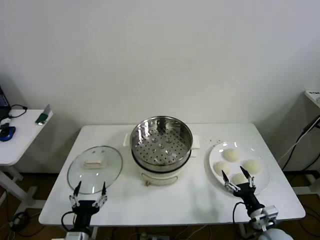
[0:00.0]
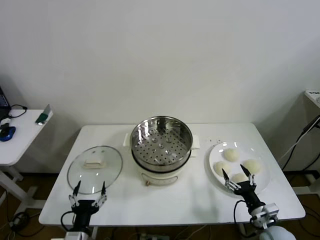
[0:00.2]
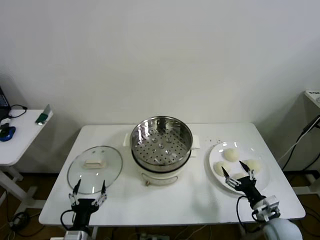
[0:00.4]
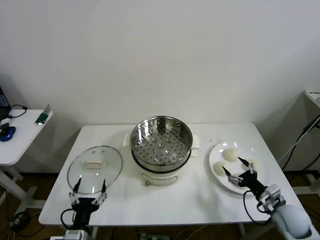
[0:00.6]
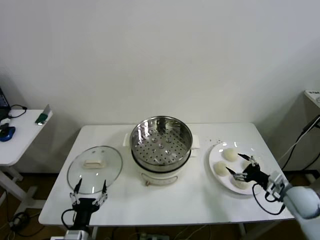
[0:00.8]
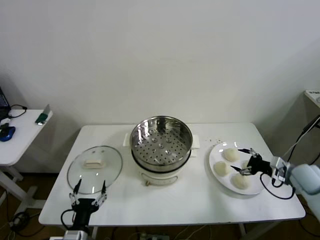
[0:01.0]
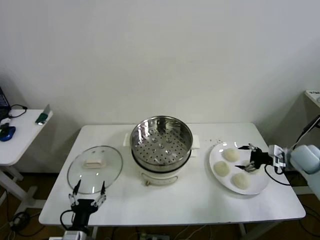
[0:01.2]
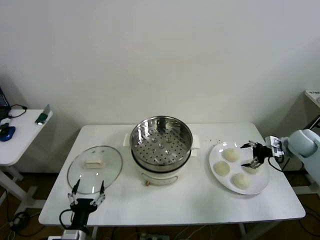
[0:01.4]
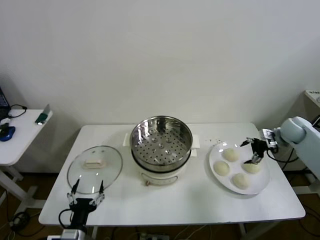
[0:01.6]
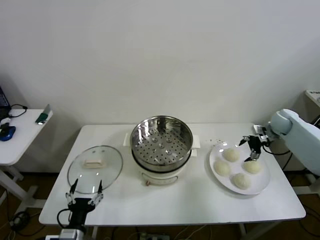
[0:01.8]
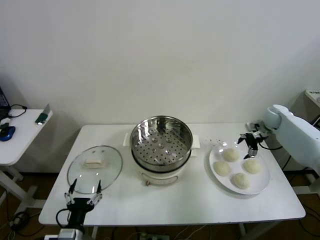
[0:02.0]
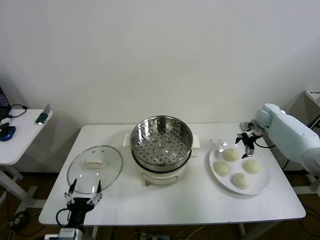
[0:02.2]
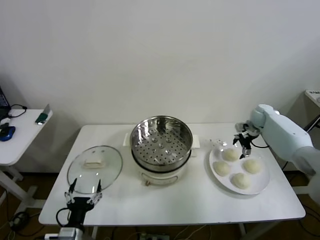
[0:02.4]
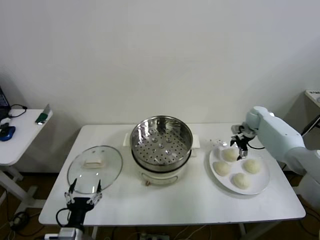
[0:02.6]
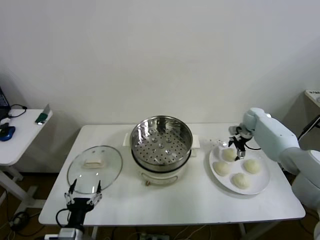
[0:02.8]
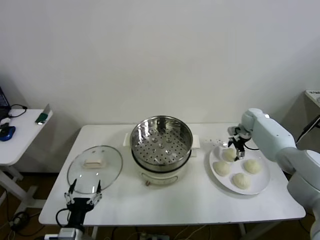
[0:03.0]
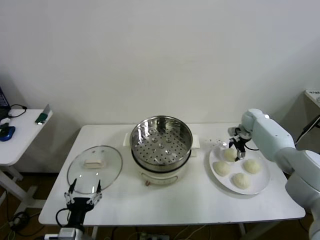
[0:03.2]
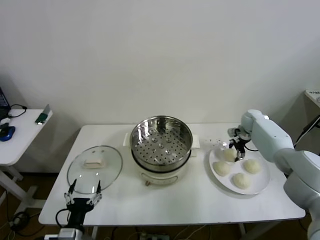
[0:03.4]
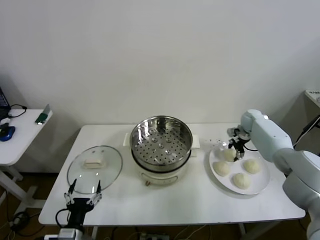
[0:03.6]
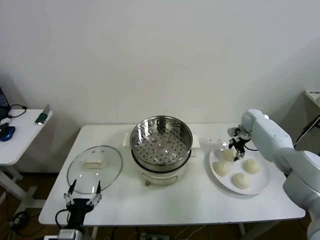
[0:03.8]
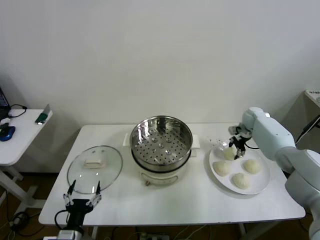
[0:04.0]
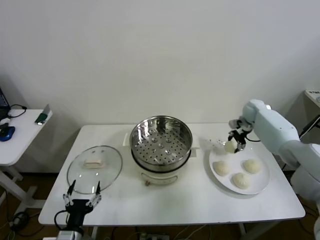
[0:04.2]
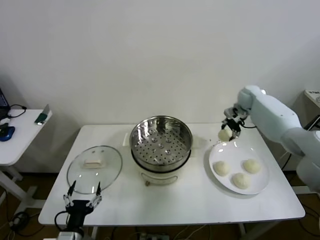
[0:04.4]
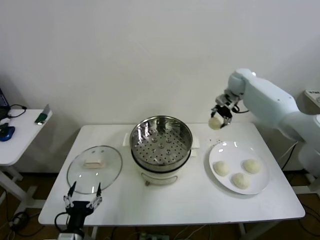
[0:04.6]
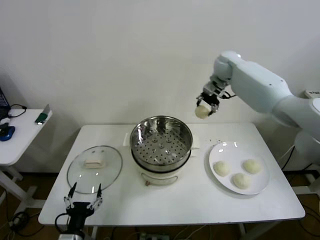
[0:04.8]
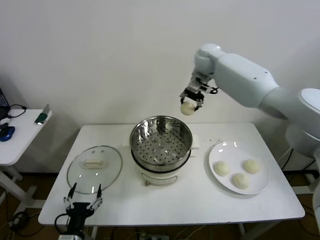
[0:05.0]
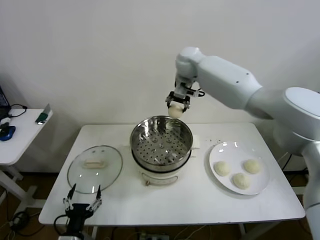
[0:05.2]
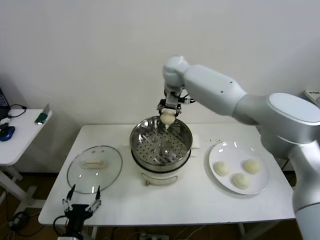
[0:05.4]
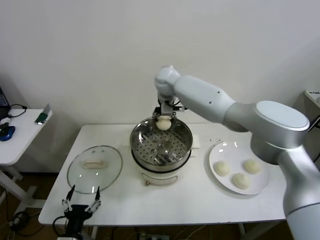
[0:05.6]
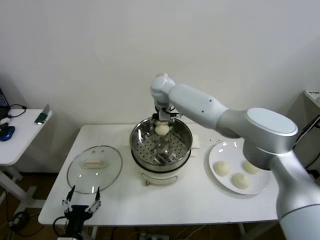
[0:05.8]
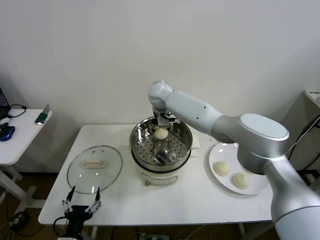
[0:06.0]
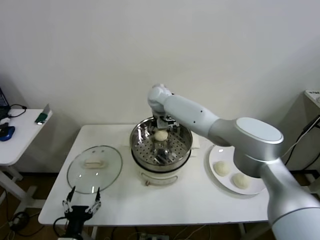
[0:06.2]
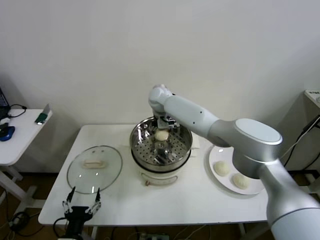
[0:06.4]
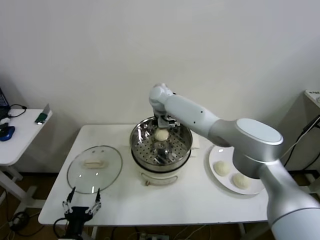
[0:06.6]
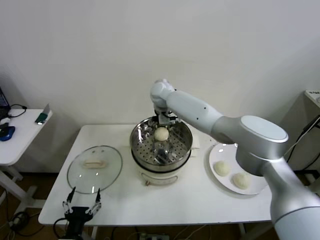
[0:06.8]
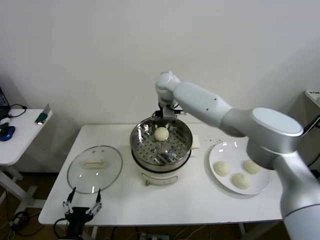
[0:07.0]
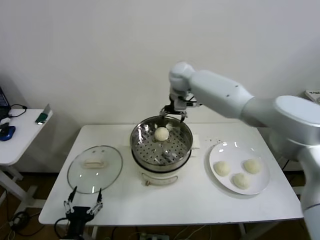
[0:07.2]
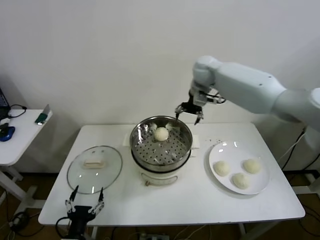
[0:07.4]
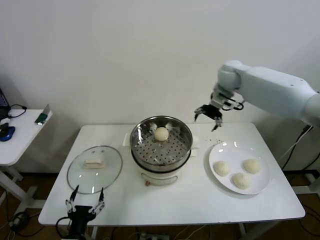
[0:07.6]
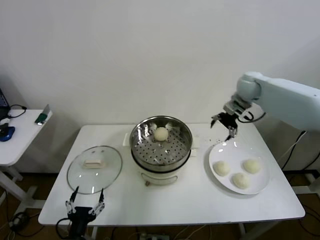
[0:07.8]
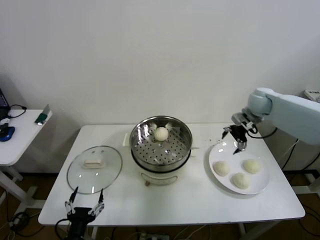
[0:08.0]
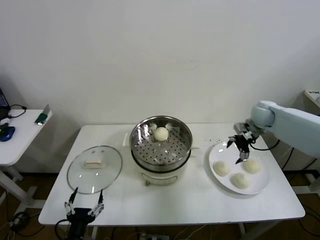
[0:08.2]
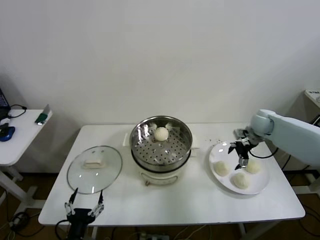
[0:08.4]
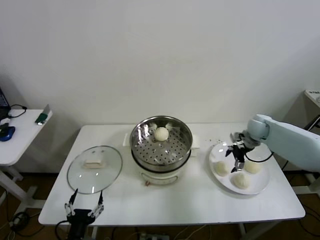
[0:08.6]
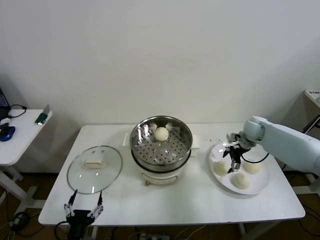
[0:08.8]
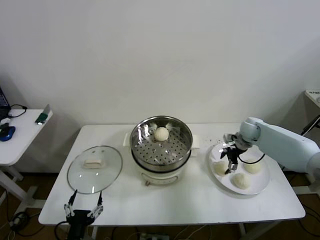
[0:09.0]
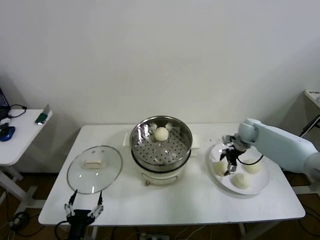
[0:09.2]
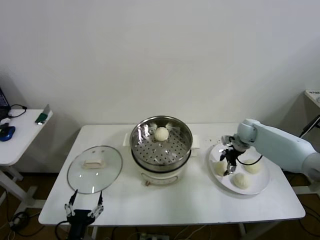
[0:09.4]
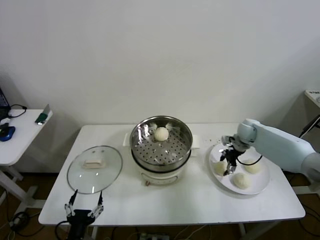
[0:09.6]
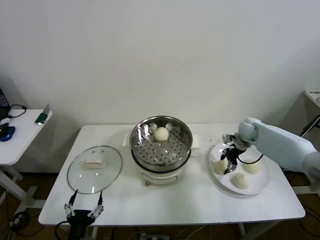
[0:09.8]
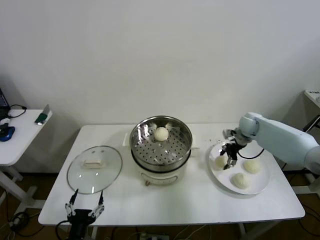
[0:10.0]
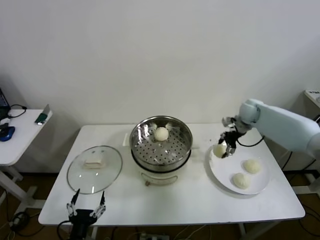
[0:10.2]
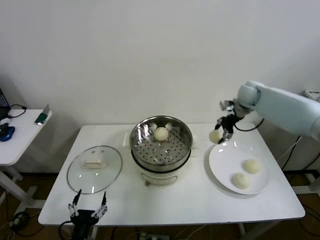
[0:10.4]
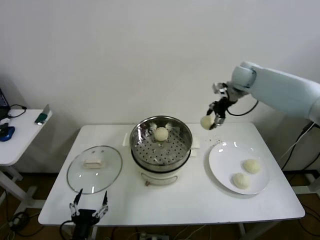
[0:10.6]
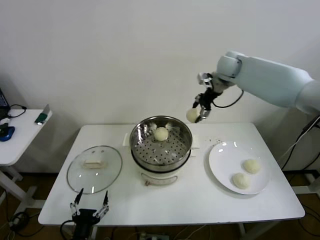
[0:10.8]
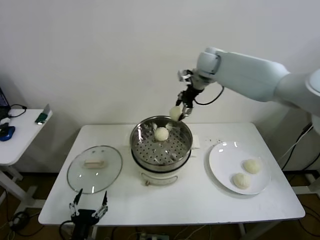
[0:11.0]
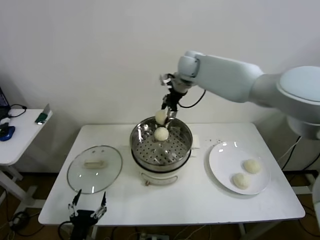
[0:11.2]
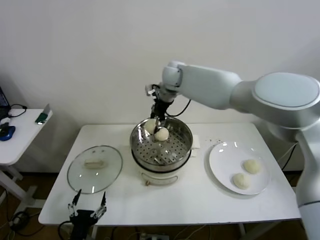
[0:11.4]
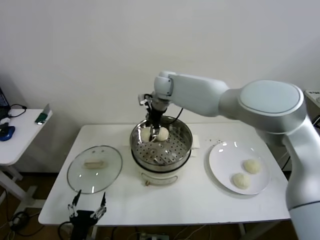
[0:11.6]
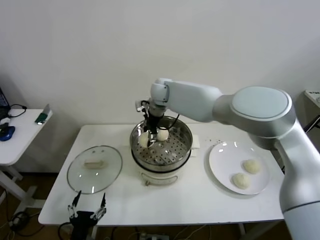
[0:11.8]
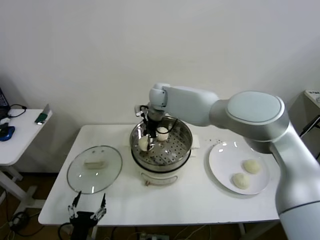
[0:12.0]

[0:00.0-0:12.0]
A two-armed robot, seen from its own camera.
Step, 0.0 to 3.6 s: Grasp the baozi in the plate with right gripper.
Step, 3.8 to 7.0 s: Place the baozi on the steamer with right gripper.
Step, 7.2 to 9.4 s: Grasp the baozi in the plate with right gripper.
1.6 to 3.0 s: The right gripper is displaced forward and to the left by some 15 cm.
3.0 to 4.4 s: The right gripper shifts some 10 cm upward, and closes.
4.4 to 6.0 s: The right gripper moves to the left, roughly 35 cm.
6.0 to 7.6 s: The right gripper moves to the right, roughly 25 cm, and opens.
7.6 to 9.0 s: The right gripper heads downward and to the right, covering some 25 cm.
9.0 to 10.4 s: The right gripper goes some 15 cm upward, and closes its fingers.
10.4 to 12.0 s: The right gripper travels to the left by roughly 35 cm.

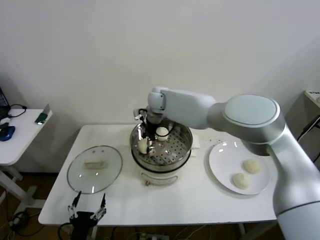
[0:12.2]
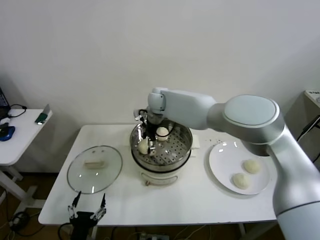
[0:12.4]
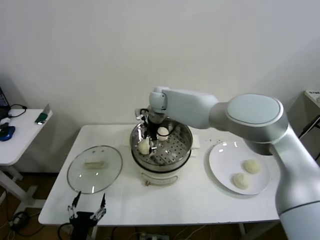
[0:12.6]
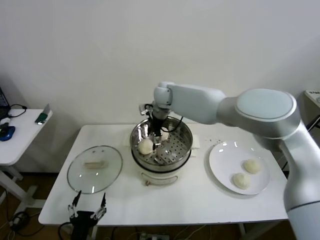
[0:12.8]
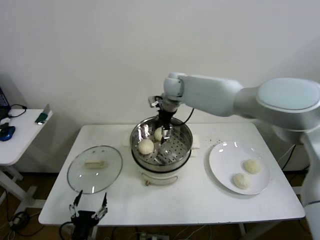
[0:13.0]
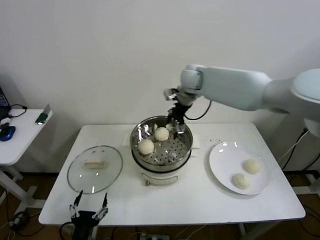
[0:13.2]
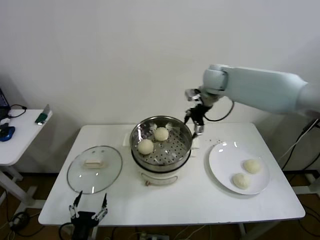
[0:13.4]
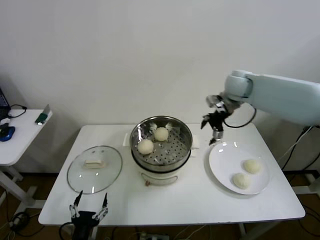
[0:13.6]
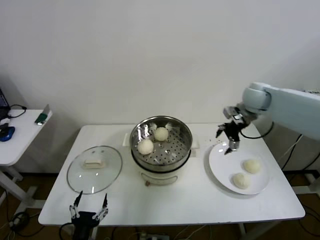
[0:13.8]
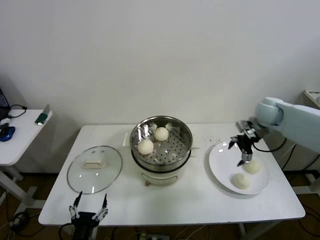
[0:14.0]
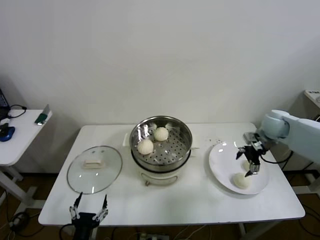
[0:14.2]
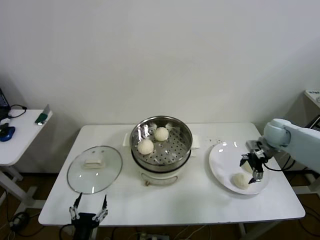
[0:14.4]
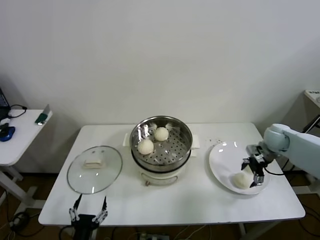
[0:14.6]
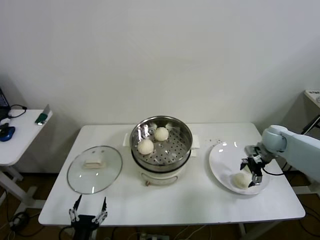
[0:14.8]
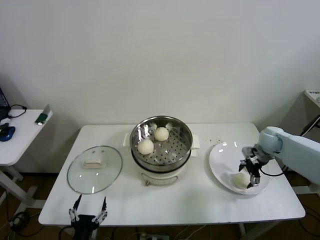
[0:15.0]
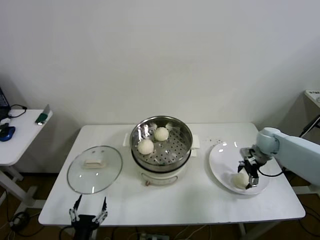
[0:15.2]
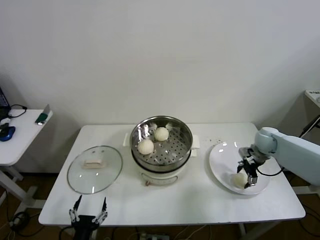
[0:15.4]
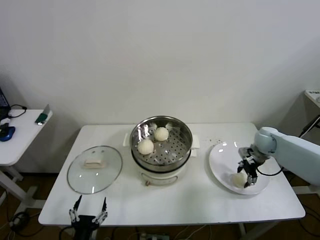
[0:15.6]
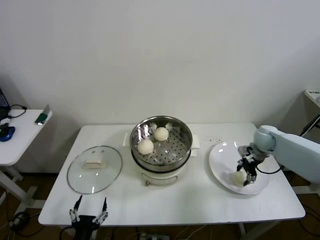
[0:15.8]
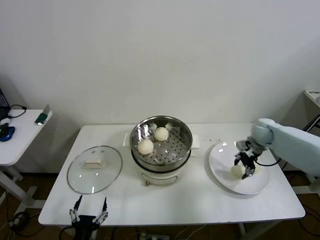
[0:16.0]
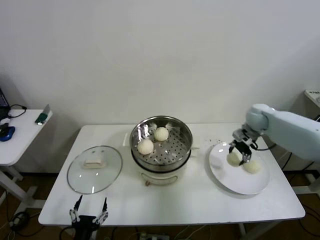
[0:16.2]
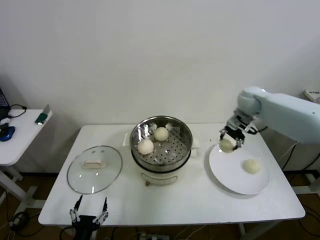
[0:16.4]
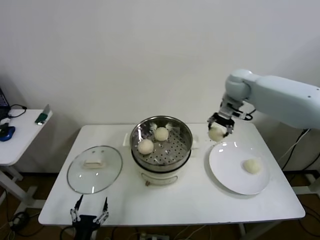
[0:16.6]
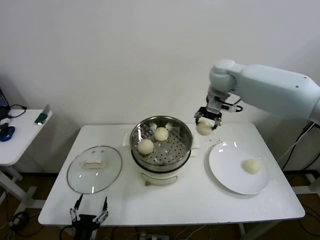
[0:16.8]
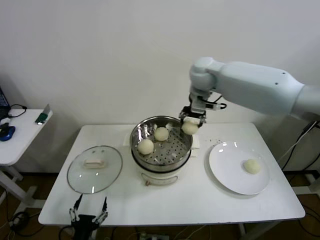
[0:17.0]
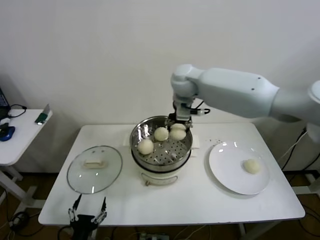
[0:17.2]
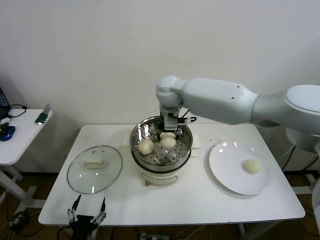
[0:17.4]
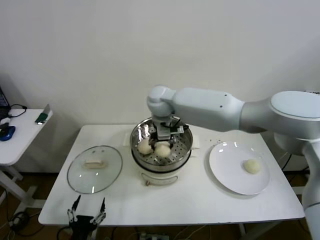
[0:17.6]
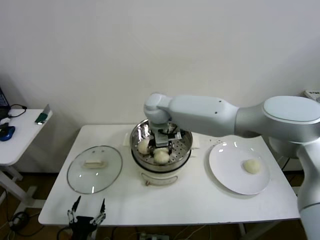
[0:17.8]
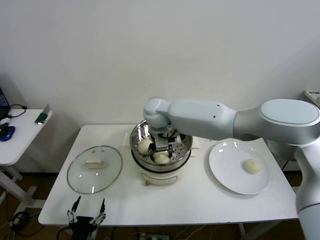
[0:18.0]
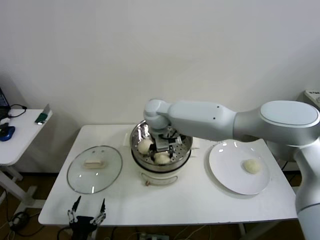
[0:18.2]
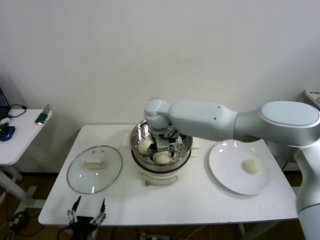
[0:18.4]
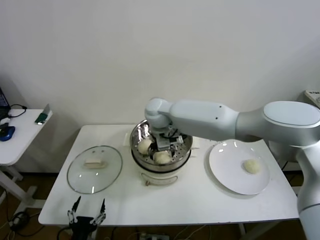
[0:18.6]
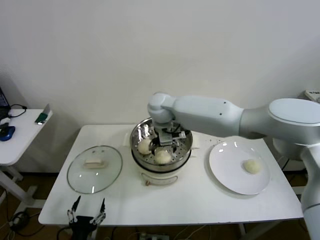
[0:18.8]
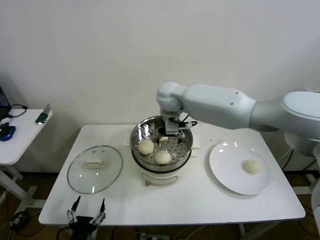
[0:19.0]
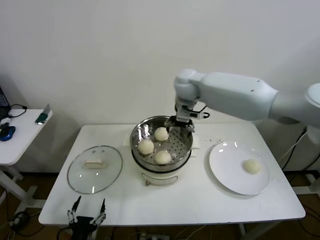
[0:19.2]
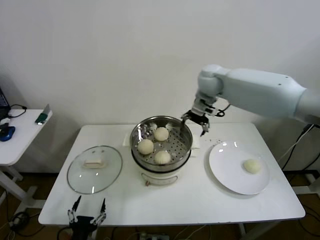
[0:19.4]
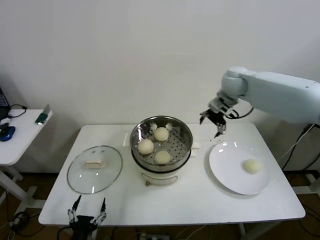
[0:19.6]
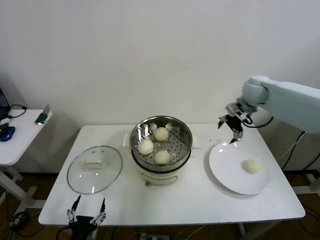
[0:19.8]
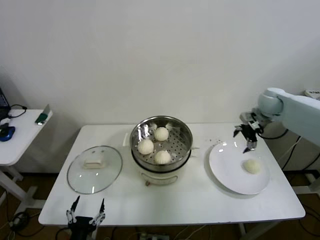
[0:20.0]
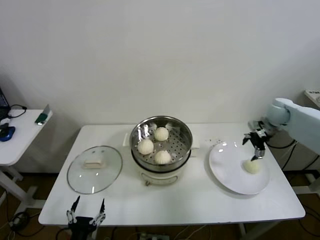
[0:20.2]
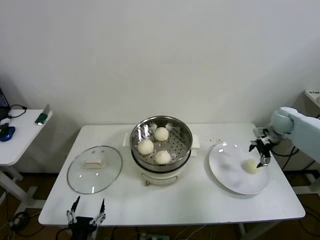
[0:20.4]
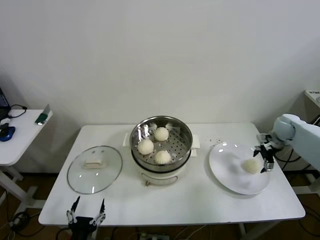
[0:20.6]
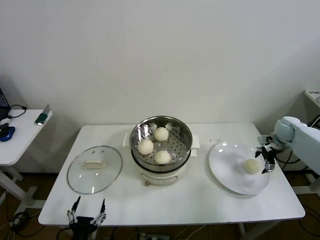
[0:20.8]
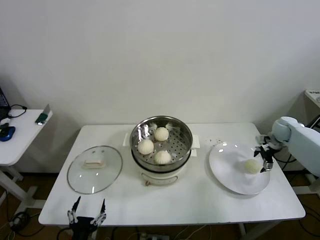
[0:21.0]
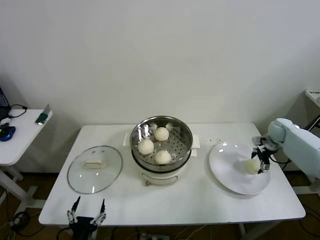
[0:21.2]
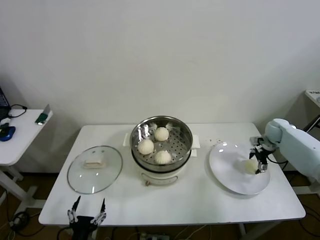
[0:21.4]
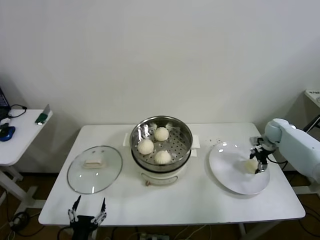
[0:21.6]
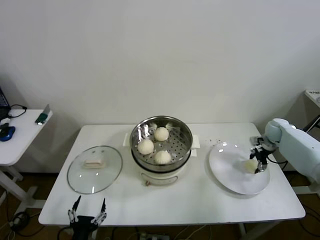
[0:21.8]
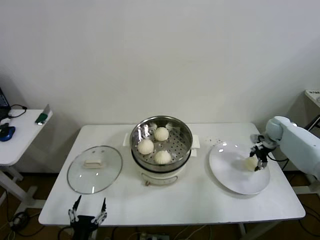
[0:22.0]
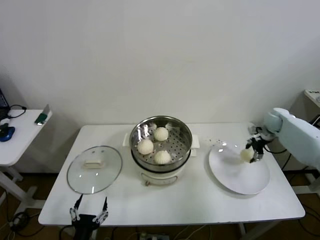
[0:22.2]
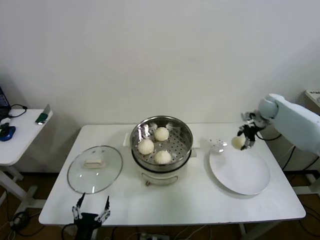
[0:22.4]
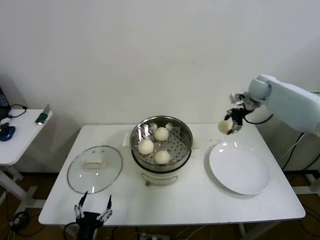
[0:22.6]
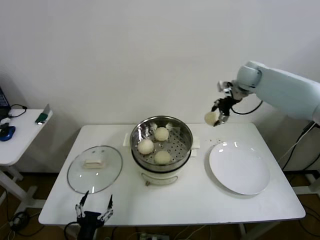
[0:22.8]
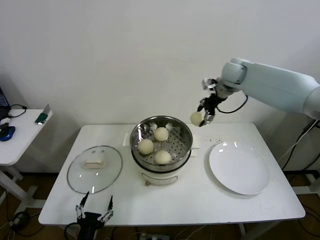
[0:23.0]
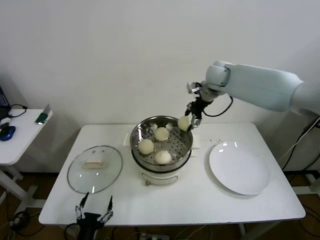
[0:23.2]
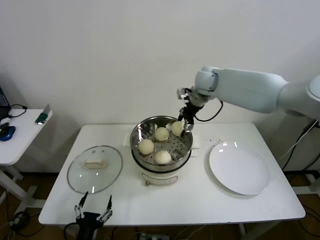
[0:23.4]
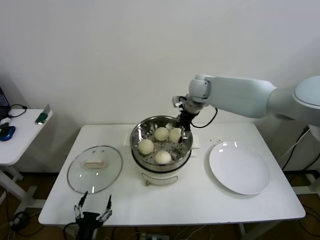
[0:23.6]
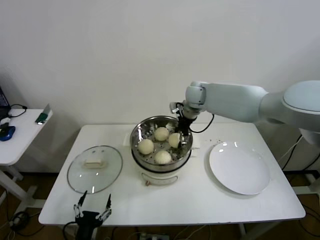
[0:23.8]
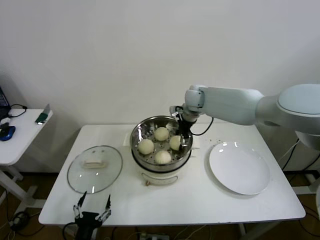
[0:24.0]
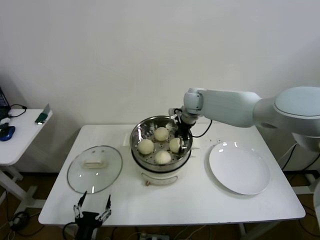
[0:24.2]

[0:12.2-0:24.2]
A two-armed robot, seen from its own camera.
Step, 13.0 to 15.6 s: Grasp the baozi in the plate with right gripper.
Step, 15.8 to 18.8 s: Place the baozi on the steamer with right gripper.
Step, 19.0 to 21.6 s: Grasp the baozi in the plate with right gripper.
12.2 to 13.8 s: The right gripper heads to the right, covering about 35 cm, and opens.
13.8 to 15.2 s: The right gripper shifts approximately 20 cm downward and to the right.
15.2 to 16.6 s: The right gripper travels upward and to the left by about 25 cm, and closes.
16.6 to 18.2 s: The right gripper is displaced to the left by about 30 cm.
18.2 to 19.8 s: The right gripper travels to the right by approximately 35 cm, and opens.
19.8 to 21.2 s: The right gripper moves downward and to the right, about 25 cm.
21.2 to 22.6 s: The right gripper shifts some 20 cm upward, to the left and forward, and closes.
22.6 to 24.2 s: The right gripper travels to the left by roughly 25 cm, and opens its fingers.
